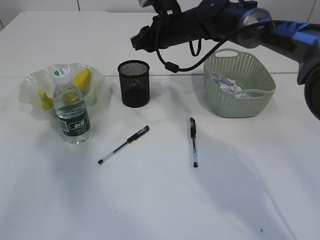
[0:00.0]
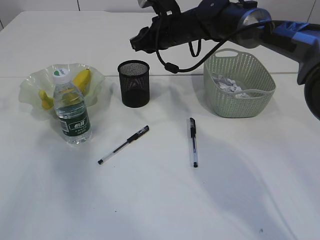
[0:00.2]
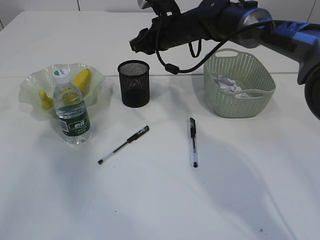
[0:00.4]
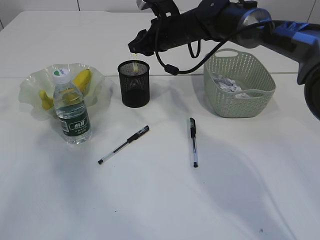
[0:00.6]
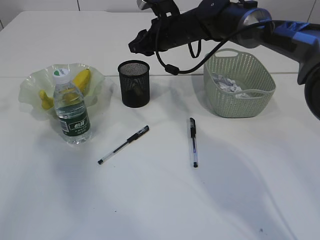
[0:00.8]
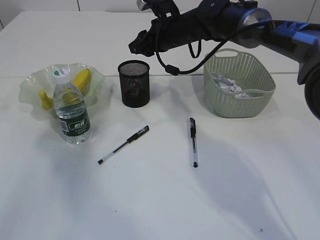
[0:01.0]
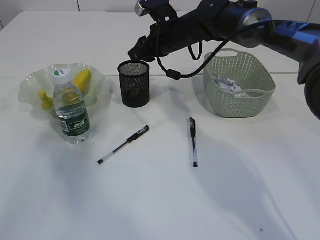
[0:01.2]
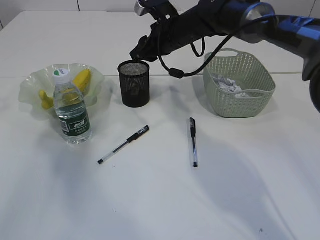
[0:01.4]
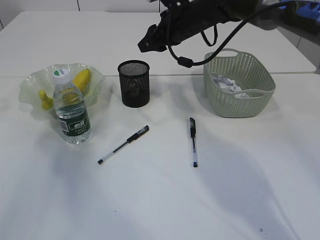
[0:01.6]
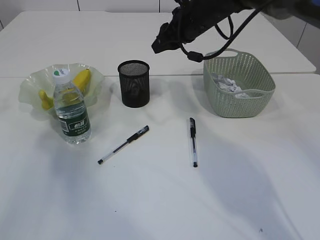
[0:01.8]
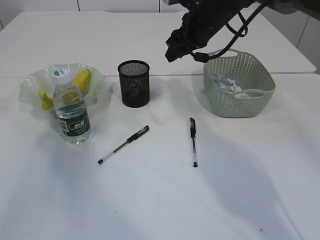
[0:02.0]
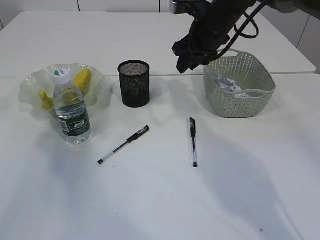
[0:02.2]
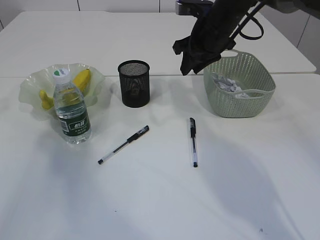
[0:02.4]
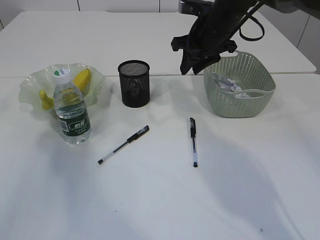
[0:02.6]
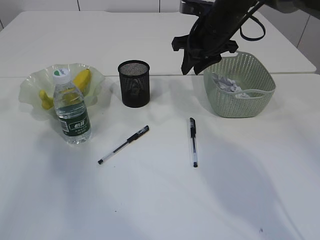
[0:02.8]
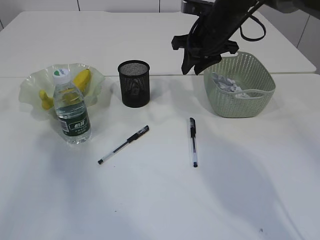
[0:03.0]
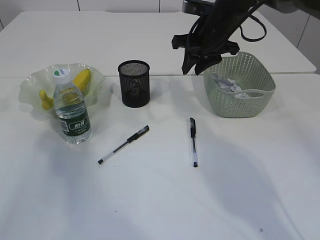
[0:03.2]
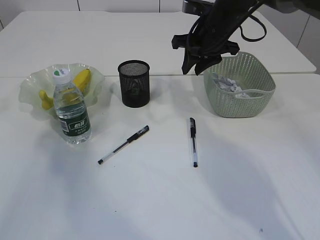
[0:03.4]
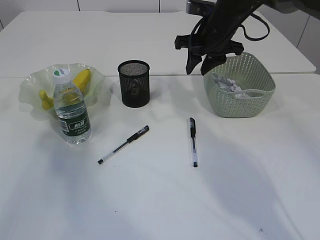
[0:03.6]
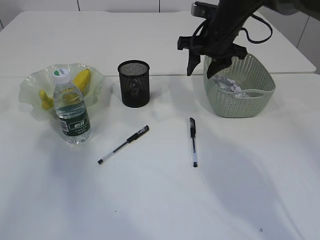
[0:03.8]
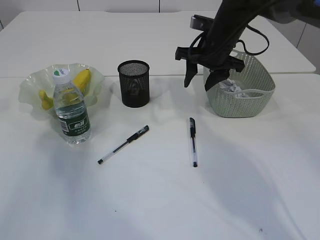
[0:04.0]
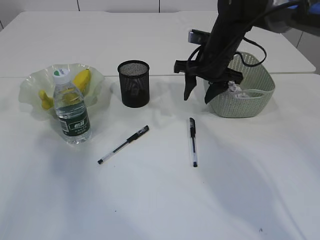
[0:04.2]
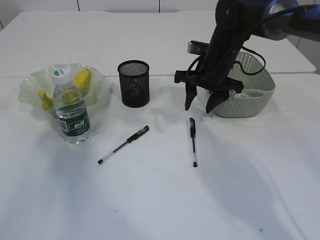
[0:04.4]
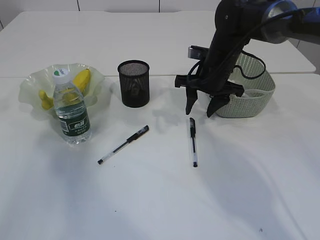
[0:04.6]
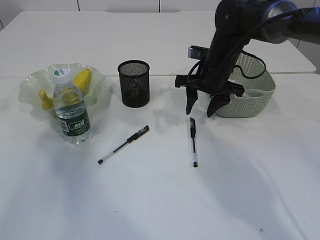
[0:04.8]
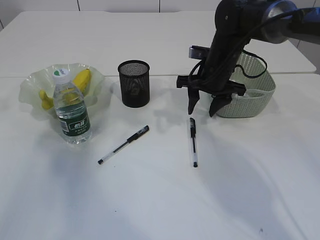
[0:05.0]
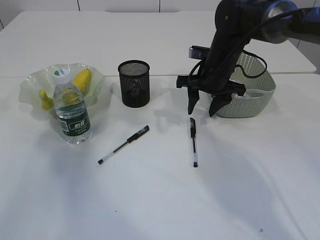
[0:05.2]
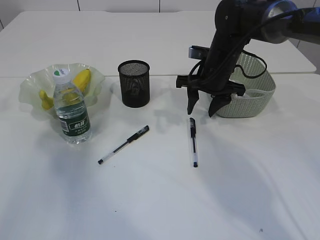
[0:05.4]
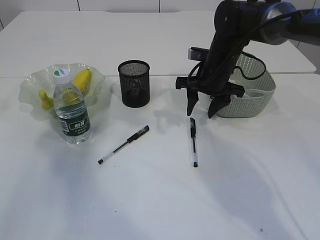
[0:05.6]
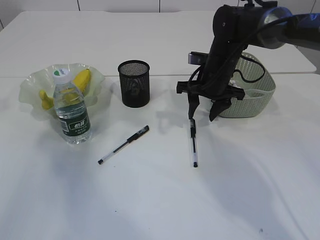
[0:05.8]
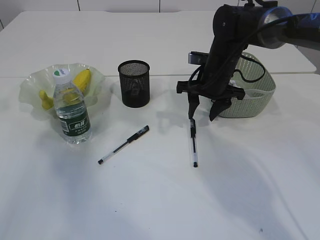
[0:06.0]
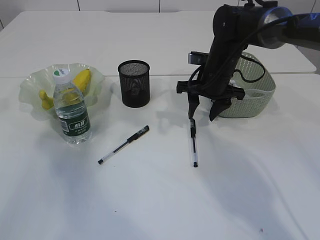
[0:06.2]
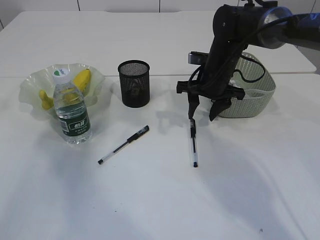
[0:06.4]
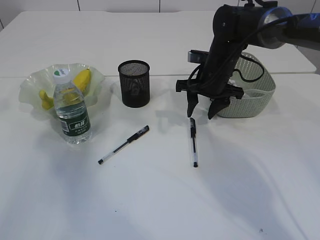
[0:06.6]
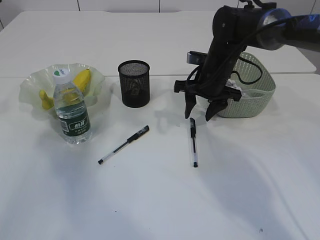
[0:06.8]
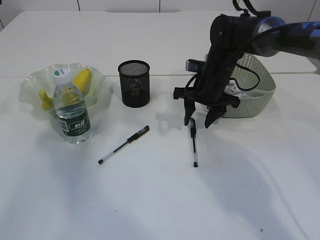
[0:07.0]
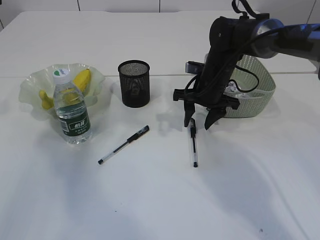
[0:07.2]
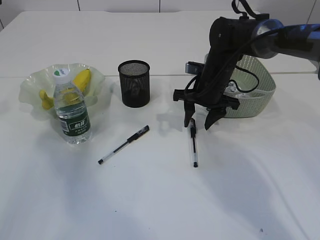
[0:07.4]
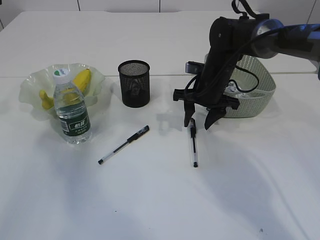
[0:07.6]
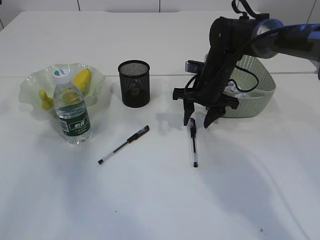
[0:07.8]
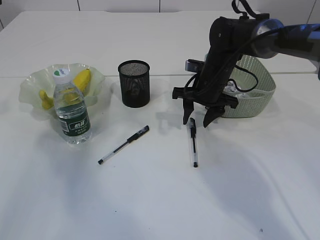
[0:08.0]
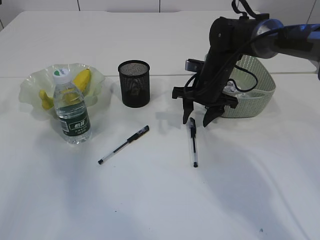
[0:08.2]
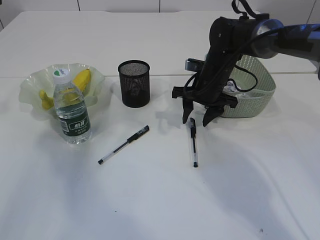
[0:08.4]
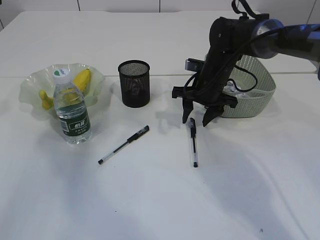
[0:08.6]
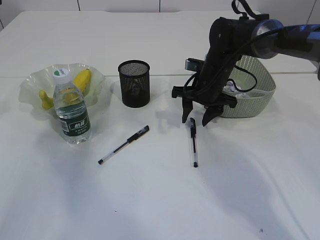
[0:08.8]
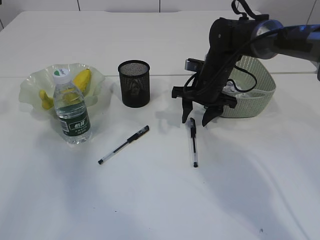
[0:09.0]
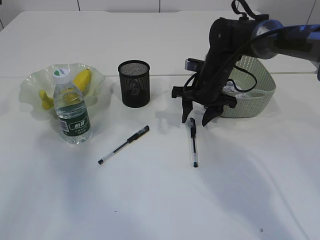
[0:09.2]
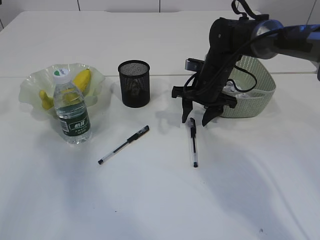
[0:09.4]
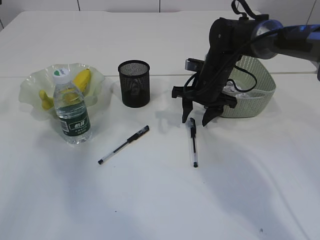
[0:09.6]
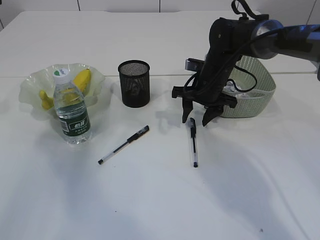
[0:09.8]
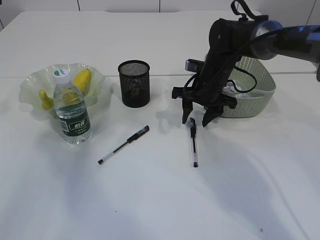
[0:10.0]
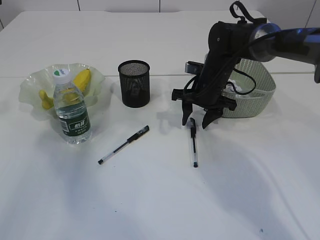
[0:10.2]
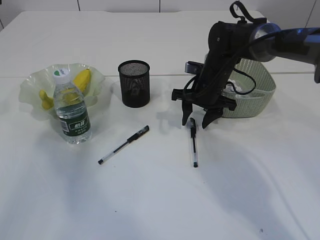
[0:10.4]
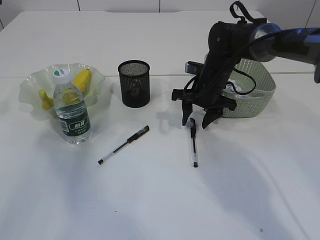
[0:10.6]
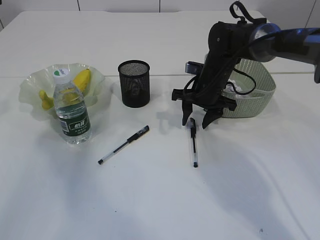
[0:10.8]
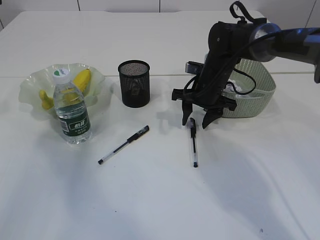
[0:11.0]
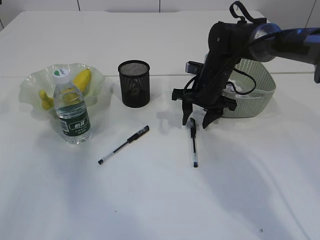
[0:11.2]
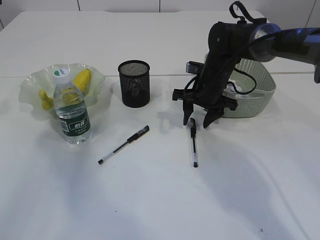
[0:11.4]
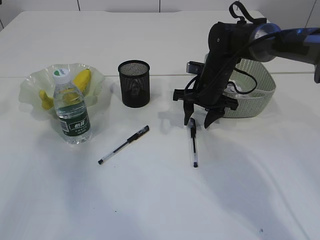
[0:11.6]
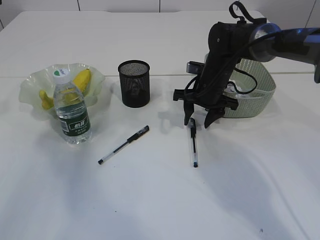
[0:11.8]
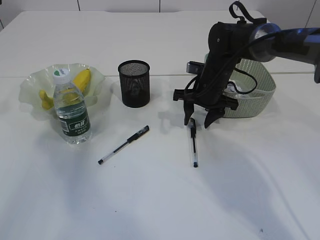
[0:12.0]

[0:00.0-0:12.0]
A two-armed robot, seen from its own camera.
0:00.0 to 0:01.6: There are only small adjustments of the grippers.
0:01.6 to 0:03.0: The right gripper travels to the right by approximately 5 cm.
0:03.0 to 0:04.4: The right gripper goes approximately 5 cm downward.
0:04.4 to 0:07.6: The grippers stay close to where they were, moving slightly.
0:07.6 to 0:12.0: Both grippers stay put.

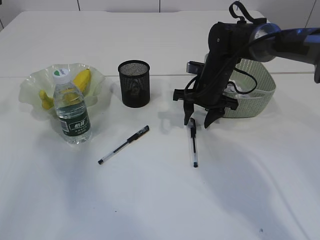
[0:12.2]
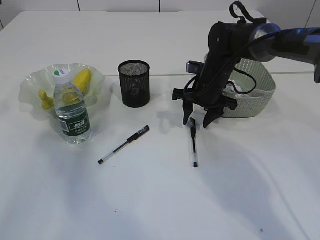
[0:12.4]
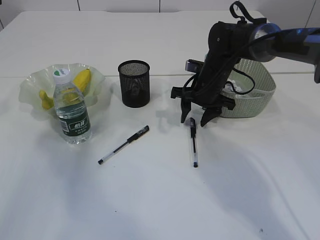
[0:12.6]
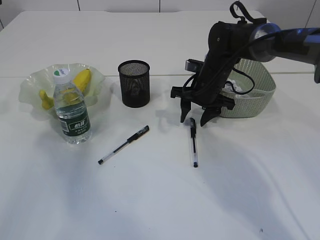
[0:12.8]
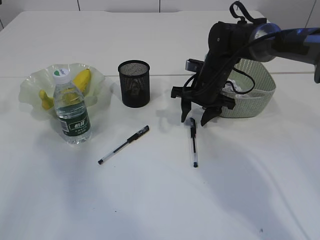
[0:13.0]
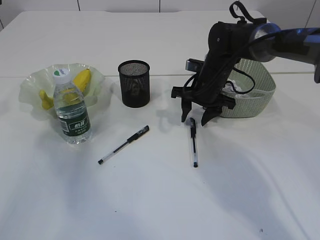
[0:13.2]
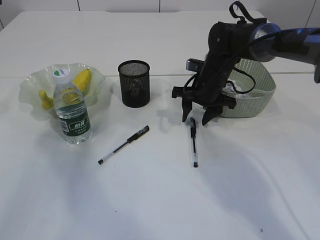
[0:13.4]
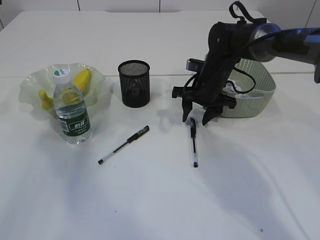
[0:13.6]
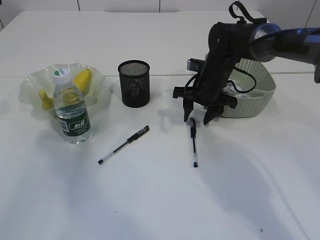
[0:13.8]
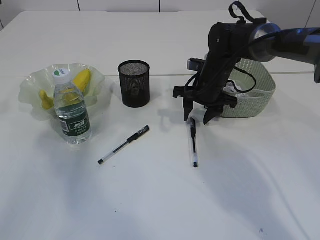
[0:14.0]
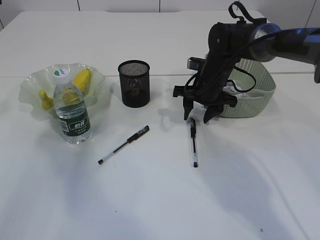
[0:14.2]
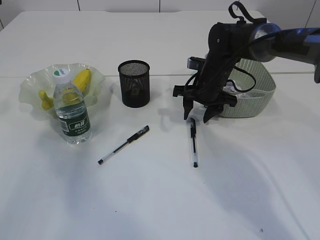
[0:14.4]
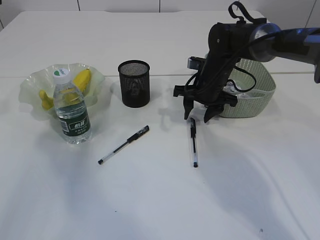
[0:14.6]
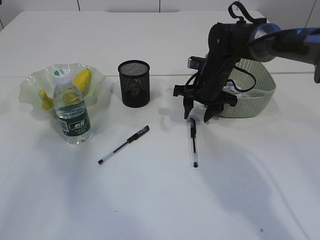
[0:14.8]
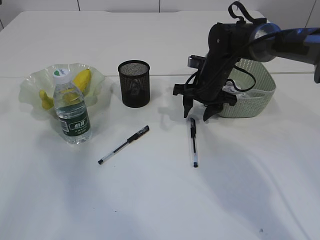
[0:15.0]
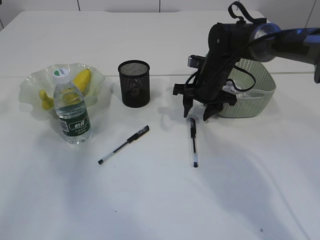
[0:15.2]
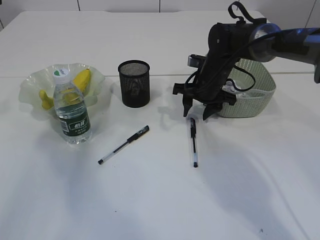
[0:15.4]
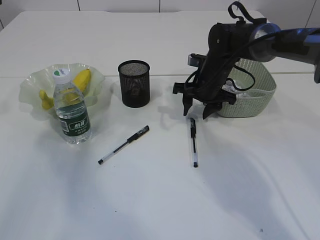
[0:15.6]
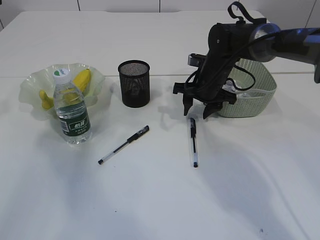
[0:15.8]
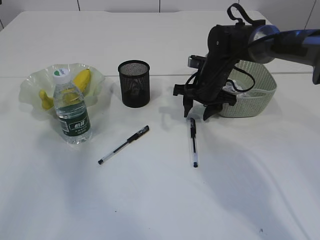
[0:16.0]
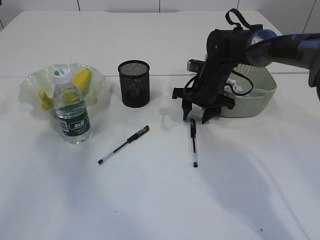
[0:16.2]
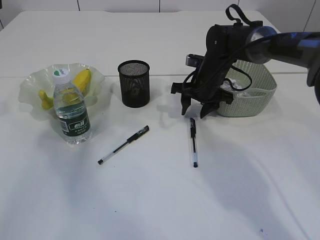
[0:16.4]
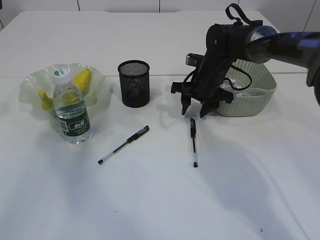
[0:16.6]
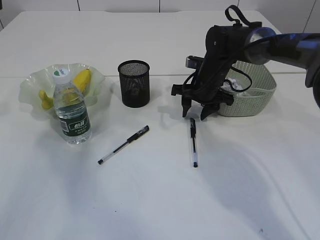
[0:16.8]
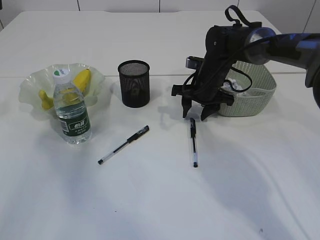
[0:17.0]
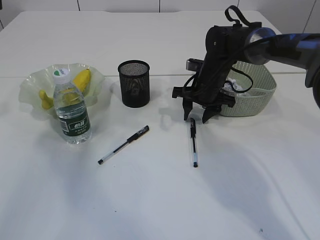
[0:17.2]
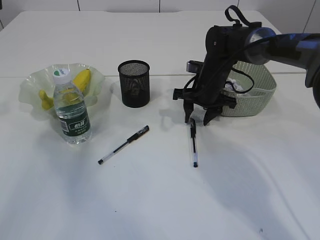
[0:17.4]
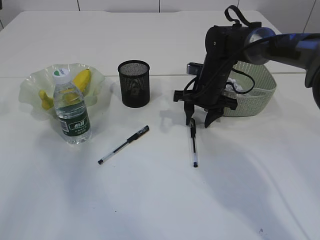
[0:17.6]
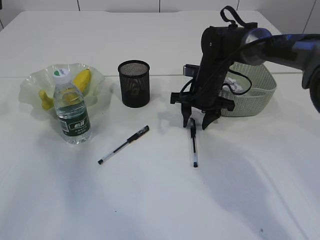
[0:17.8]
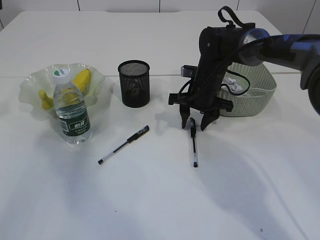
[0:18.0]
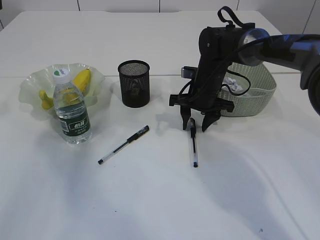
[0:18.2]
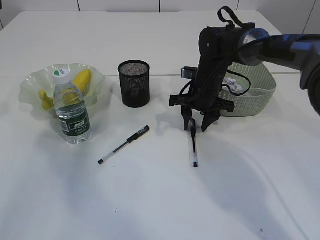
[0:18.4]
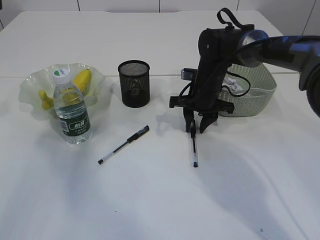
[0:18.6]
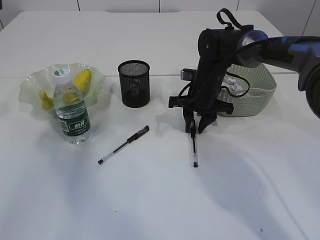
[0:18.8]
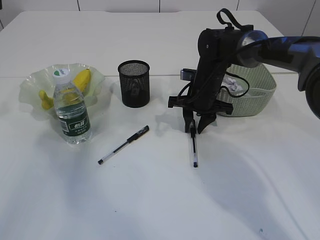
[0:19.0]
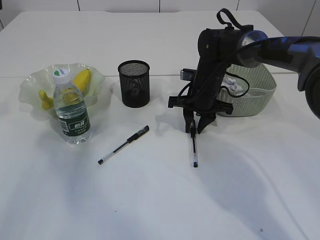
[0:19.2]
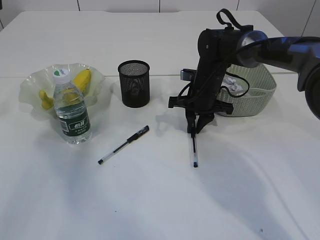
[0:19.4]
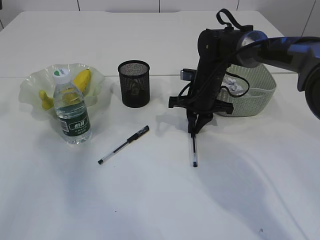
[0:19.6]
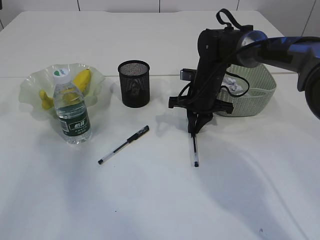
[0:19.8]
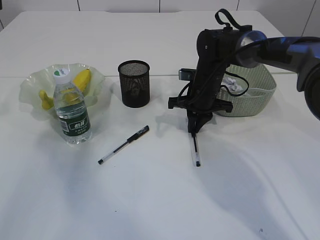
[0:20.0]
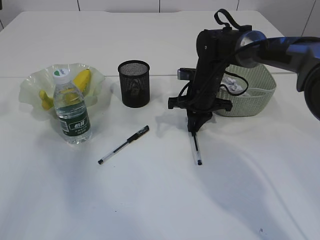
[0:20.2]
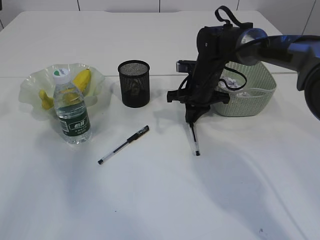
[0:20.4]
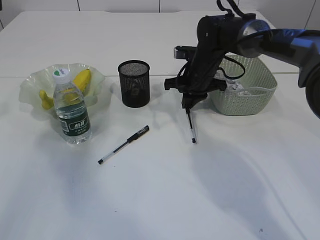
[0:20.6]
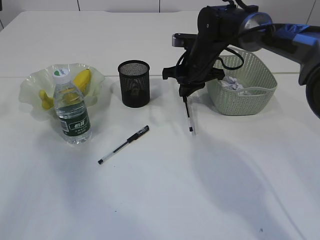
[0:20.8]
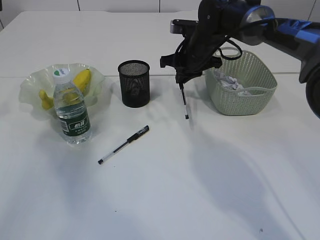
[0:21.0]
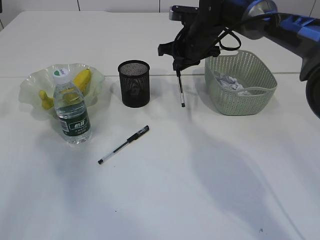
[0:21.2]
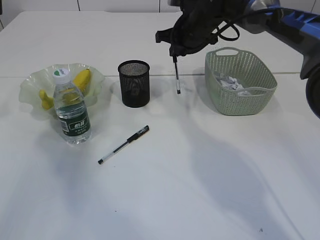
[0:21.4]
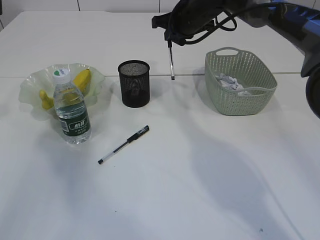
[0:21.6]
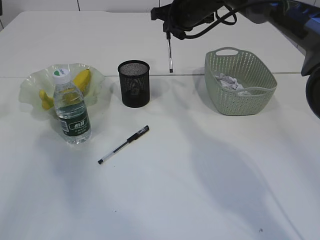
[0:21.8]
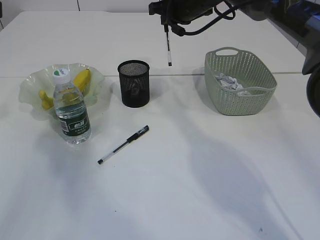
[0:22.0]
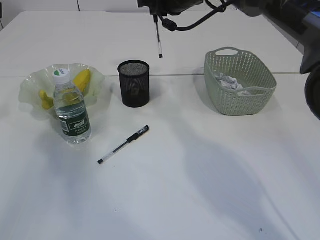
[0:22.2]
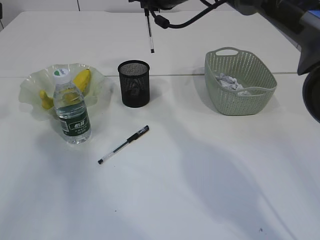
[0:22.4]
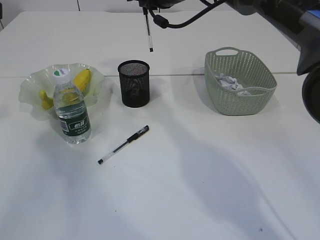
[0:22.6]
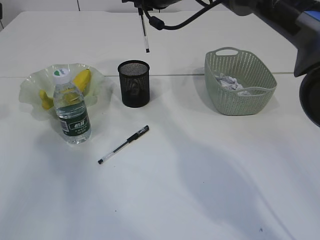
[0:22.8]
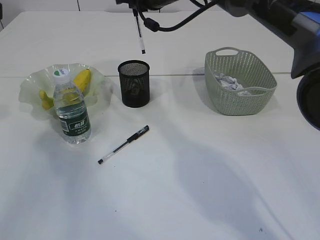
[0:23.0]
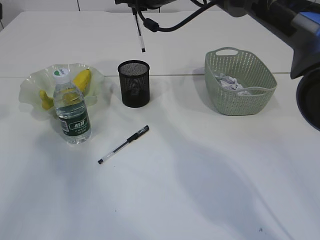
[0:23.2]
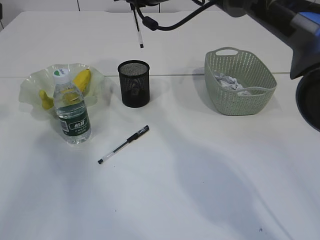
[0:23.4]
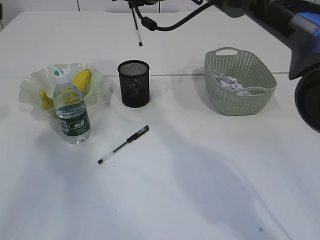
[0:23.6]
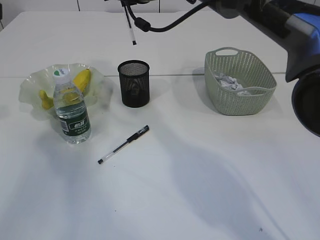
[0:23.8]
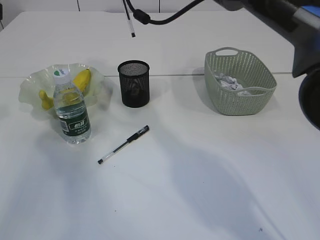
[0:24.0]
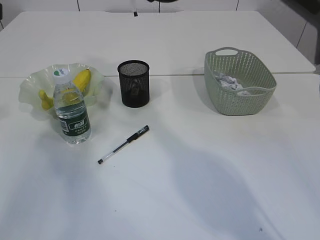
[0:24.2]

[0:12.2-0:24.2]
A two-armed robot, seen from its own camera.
Step, 0:12.2 to 0:20.4: Pick up the pen with right arm.
0:12.2 to 0:13.8: The two grippers keep their place.
0:13.8 to 0:15.2: Neither gripper changes place.
0:15.2 to 0:16.6: The two grippers keep their place.
0:16.6 to 0:18.2: There are only small adjustments of the grippers.
0:18.2 to 0:19.8: The right gripper closes up.
0:19.8 to 0:21.2: The right gripper goes about 10 cm upward.
0:21.2 to 0:22.6: The right gripper heads upward and to the left, covering approximately 10 cm.
0:22.6 to 0:24.2: The right gripper goes roughly 5 cm upward.
